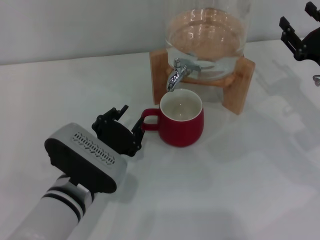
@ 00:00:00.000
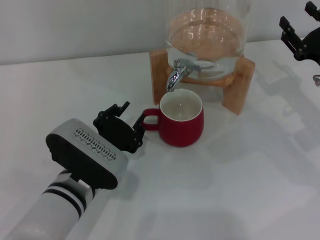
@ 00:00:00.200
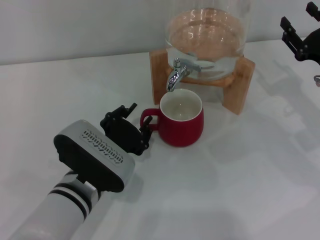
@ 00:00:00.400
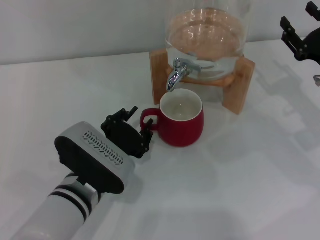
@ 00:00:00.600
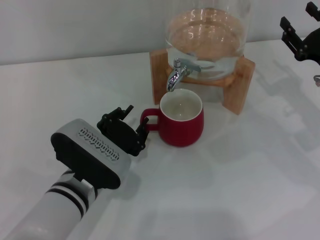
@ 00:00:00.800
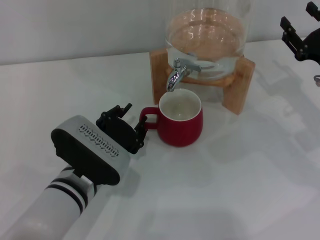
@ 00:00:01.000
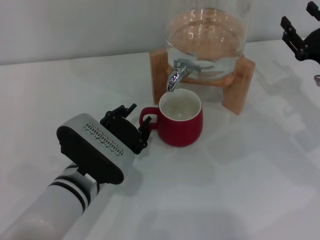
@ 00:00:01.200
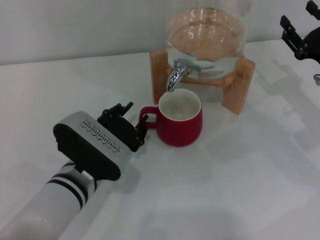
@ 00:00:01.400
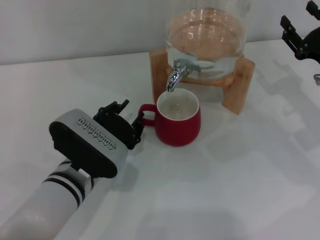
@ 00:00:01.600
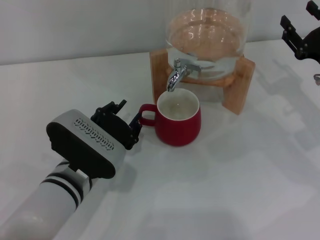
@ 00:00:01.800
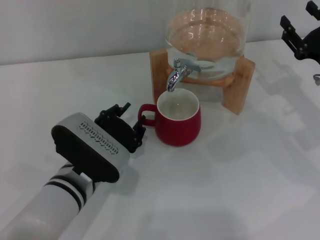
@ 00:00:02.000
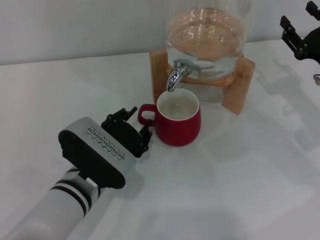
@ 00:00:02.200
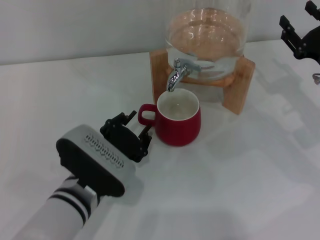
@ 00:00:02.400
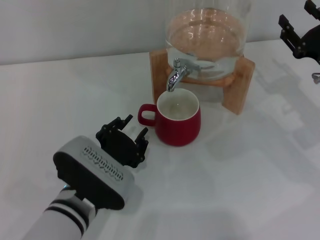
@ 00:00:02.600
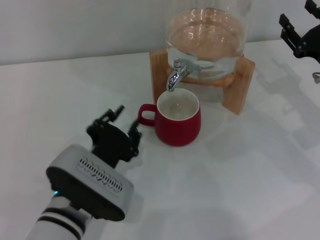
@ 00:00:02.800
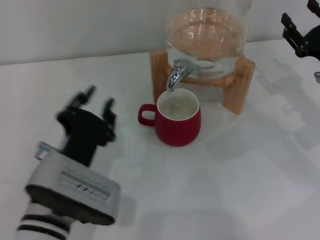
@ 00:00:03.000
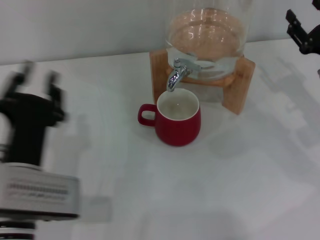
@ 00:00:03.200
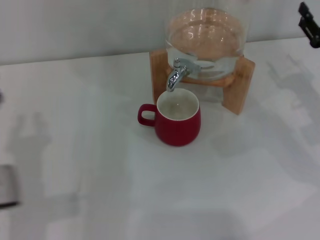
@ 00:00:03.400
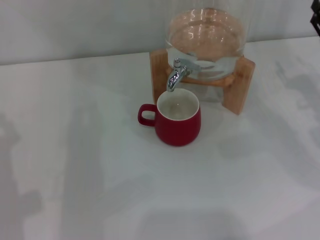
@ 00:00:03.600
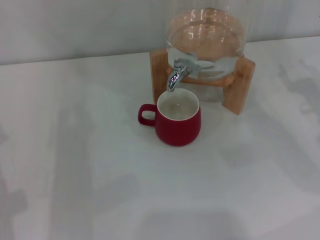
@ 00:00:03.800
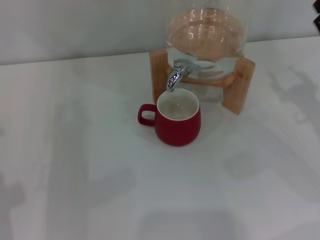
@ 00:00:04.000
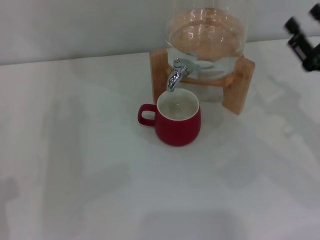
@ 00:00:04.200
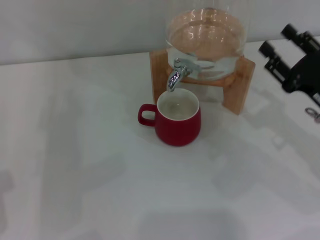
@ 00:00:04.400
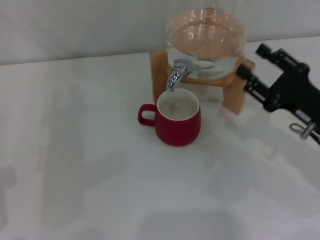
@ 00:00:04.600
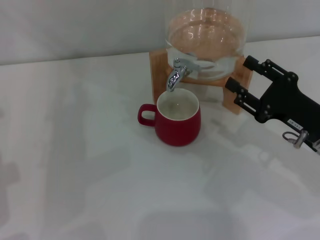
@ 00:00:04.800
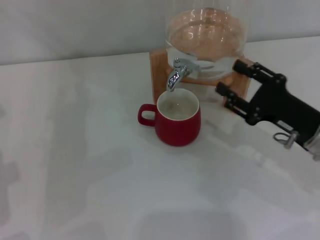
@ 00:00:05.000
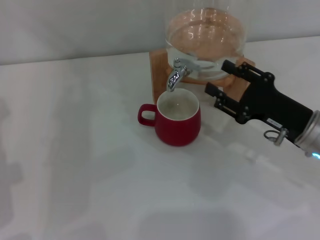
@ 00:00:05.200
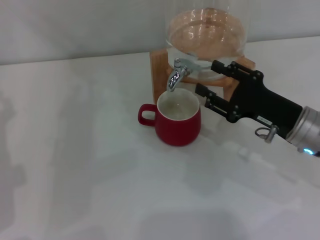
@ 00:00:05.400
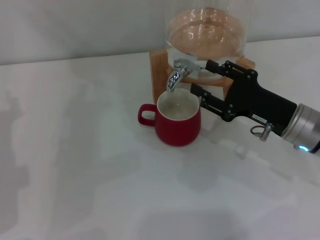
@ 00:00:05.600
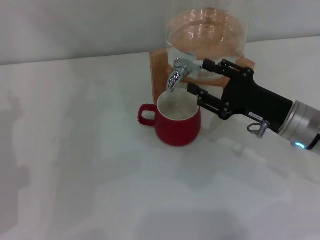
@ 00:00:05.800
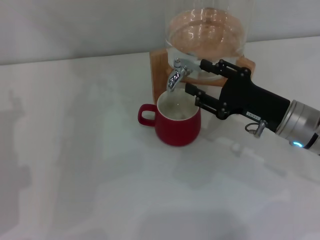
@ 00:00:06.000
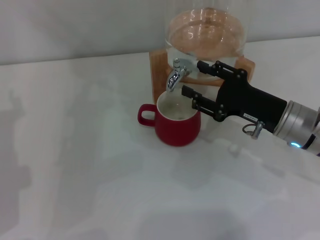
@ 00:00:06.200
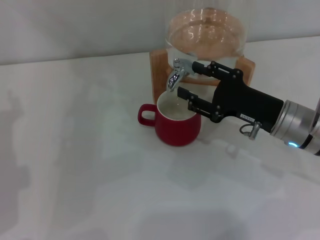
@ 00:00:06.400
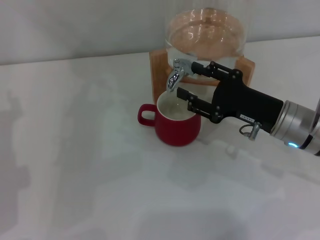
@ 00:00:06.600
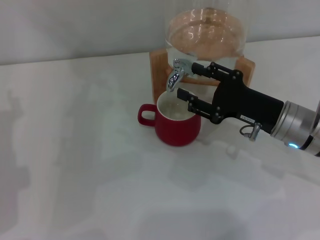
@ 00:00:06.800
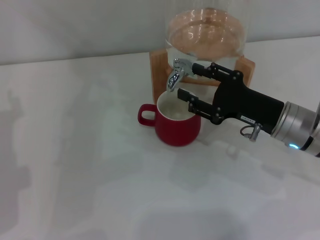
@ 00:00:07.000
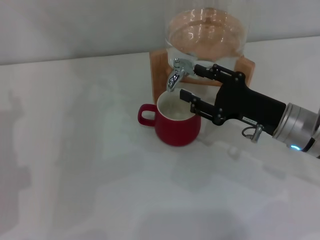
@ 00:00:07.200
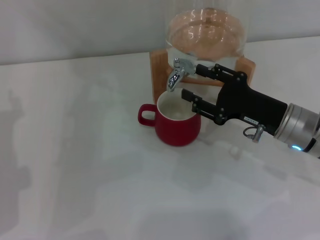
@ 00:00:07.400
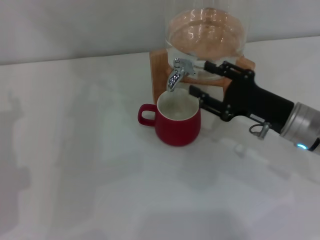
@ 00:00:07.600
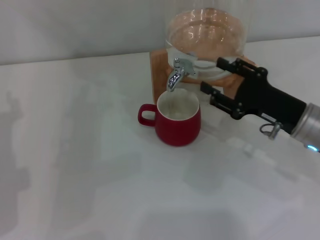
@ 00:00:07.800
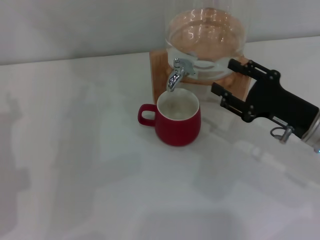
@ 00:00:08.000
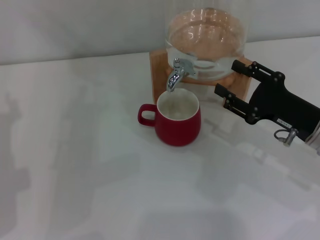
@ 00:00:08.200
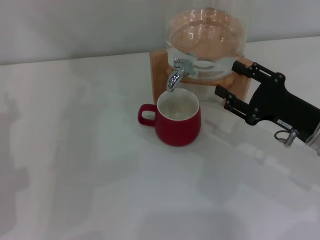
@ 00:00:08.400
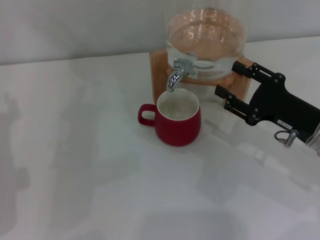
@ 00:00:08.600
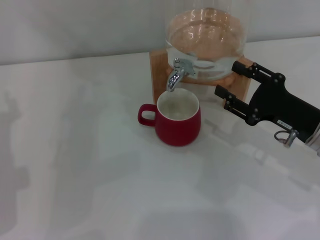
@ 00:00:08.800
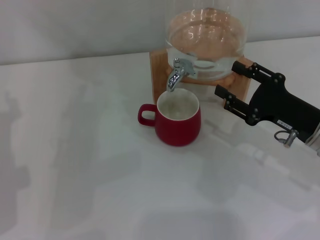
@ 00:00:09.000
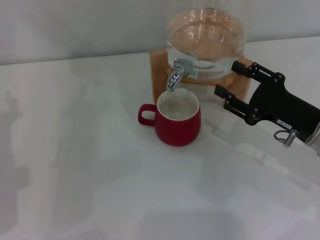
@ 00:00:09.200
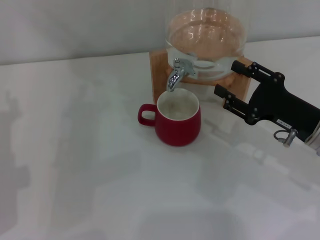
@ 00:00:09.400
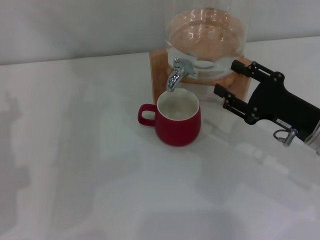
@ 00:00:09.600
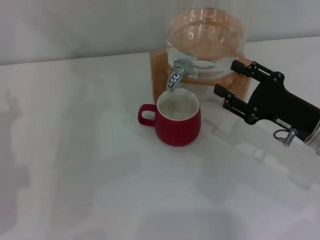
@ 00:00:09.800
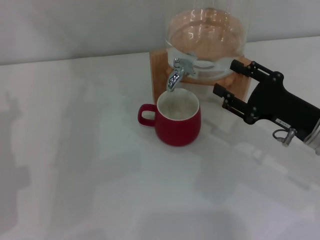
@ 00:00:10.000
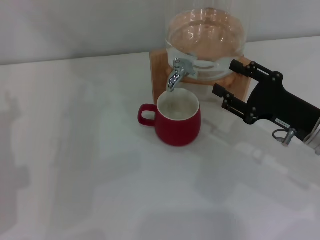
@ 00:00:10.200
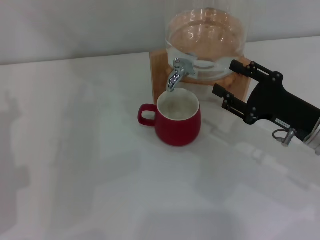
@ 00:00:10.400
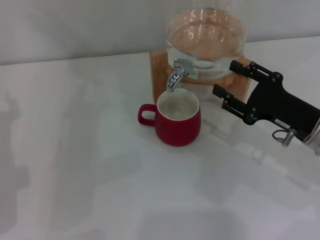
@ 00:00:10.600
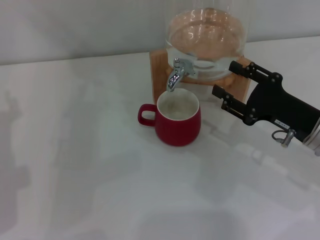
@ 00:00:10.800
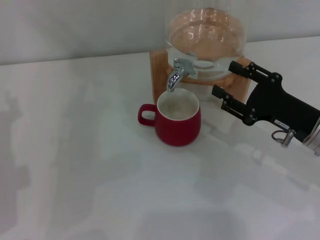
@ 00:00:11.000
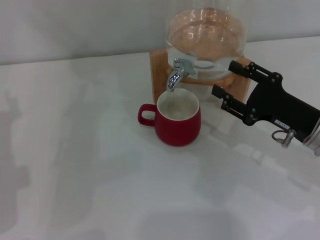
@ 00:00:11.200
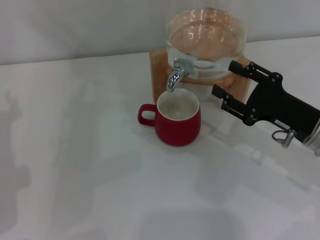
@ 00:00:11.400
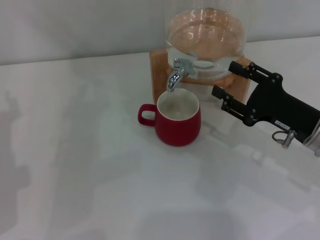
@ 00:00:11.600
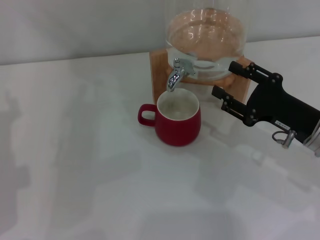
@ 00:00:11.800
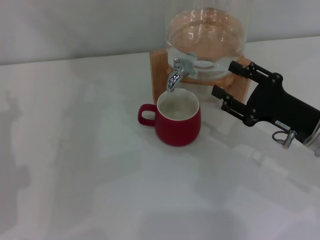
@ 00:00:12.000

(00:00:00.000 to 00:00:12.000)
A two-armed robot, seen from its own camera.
Task of the whole recording: the left gripper pick up the red cup and place it horizontally under the faucet, the right gripper turn on the faucet to fill the cup, and then turn off the faucet.
Step, 00:00:00.000 - 00:00:07.400: Open the dispenser valve and fill the cup with water with the right gripper.
00:00:00.000 - 00:00:01.600: There are only small adjustments of the grippers.
00:00:01.600 - 00:00:03.000: The left gripper moves backward, some 5 cm.
00:00:03.000 - 00:00:04.400: The left gripper heads to the left and forward, covering about 15 cm. Meanwhile the right gripper is displaced backward by about 5 cm.
00:00:04.400 - 00:00:06.000: The right gripper is displaced to the left by roughly 5 cm.
00:00:06.000 - 00:00:07.600: Both grippers stay about where they are.
00:00:07.600 - 00:00:09.000: The grippers make only small movements.
00:00:09.000 - 00:00:12.000: The two grippers keep their place.

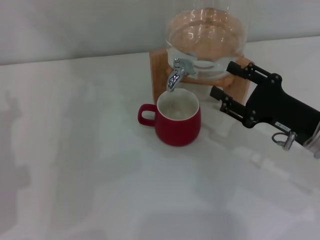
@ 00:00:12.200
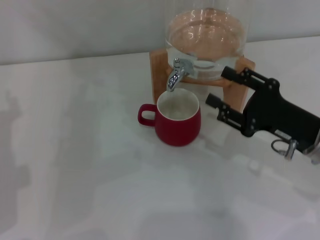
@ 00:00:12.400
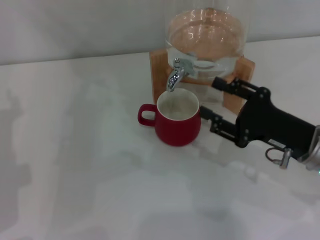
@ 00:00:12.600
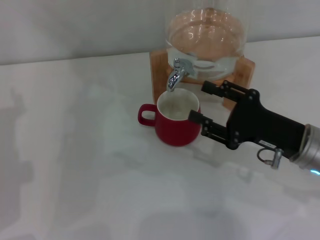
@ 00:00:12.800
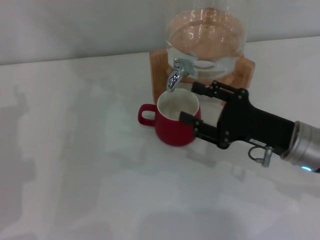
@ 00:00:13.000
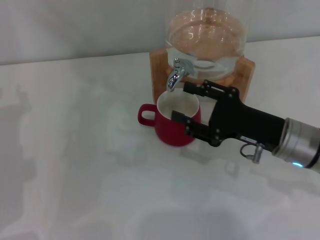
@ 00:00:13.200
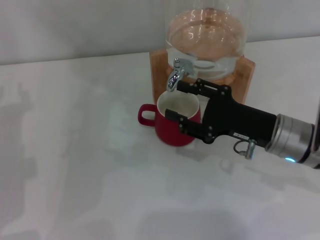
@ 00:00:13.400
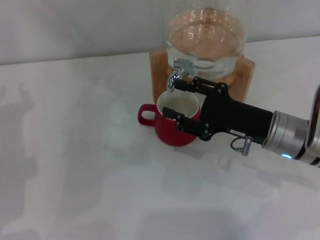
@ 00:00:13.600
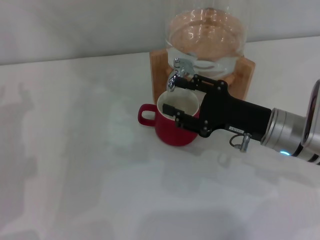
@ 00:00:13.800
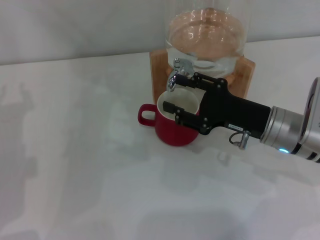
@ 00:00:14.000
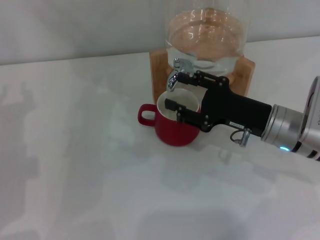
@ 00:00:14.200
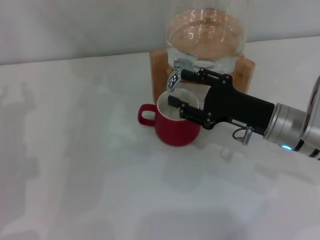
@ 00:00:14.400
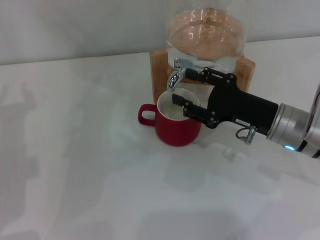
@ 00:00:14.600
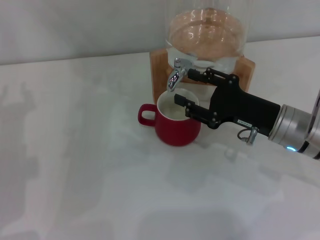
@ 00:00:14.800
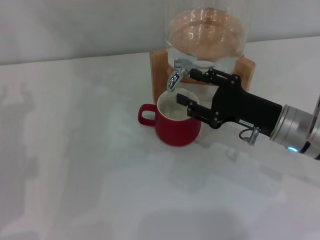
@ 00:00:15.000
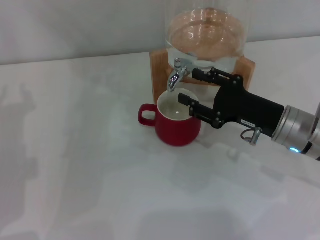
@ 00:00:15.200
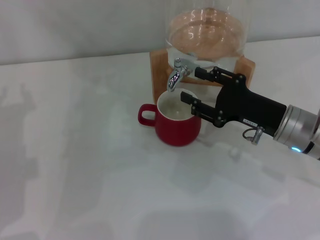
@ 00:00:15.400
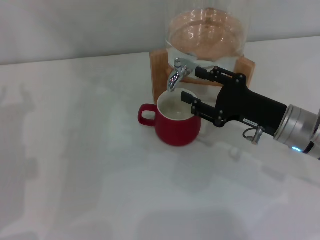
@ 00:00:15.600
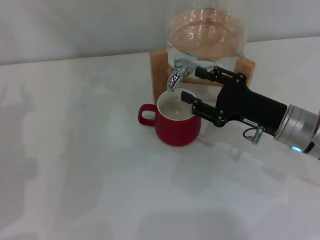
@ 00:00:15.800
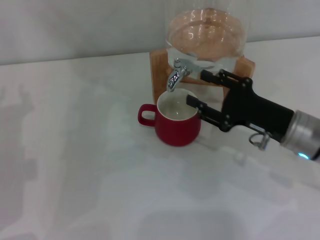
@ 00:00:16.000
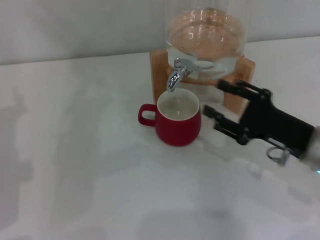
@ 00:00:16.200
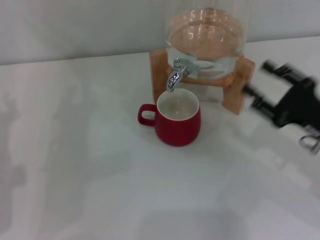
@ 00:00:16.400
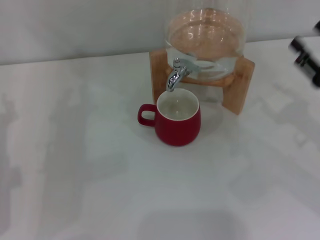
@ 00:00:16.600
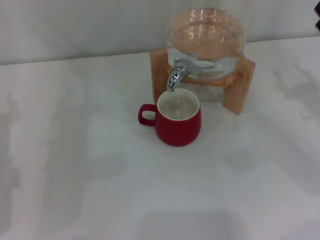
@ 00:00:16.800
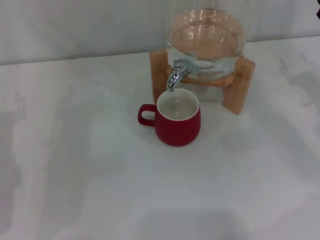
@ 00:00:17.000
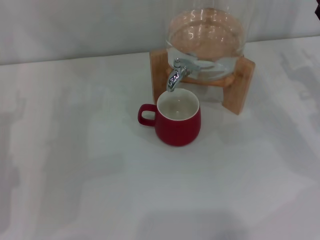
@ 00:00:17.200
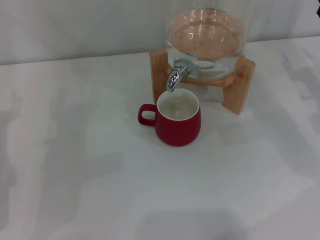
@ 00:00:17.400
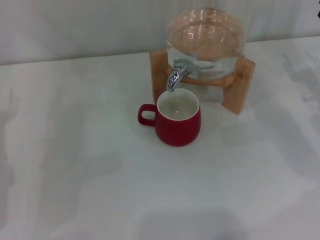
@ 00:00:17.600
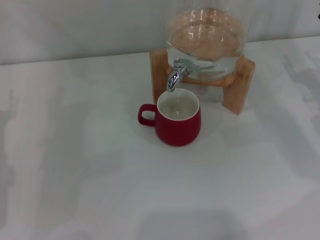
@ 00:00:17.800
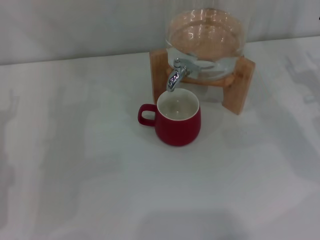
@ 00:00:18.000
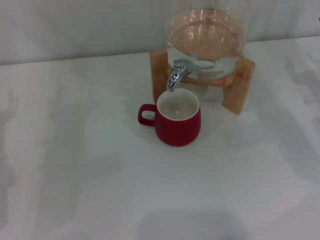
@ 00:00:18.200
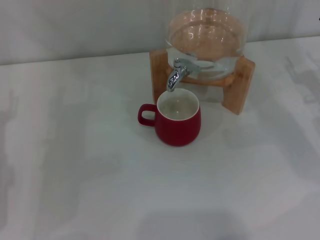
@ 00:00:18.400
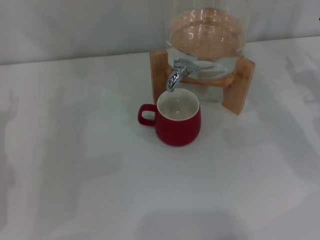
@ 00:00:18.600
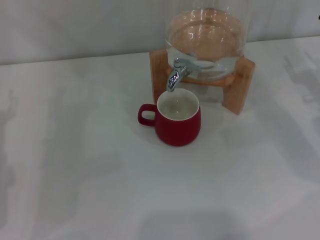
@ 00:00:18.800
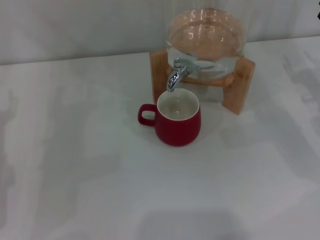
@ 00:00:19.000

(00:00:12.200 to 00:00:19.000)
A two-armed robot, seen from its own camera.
Task of the whole recording: the left gripper pick up the red cup and place it horizontally under the faucet, the right gripper turn on the faucet to fill the cup, and then turn off the faucet.
Step, 00:00:12.200 - 00:00:14.400: Close the dispenser valve with the right gripper.
00:00:12.200 - 00:00:13.600: The right gripper heads to the left, covering approximately 5 cm.
00:00:13.600 - 00:00:15.000: The grippers move only a little.
00:00:15.000 - 00:00:16.200: The right gripper shifts by roughly 5 cm.
00:00:16.200 - 00:00:17.600: The right gripper shifts about 10 cm to the right and forward.
00:00:17.600 - 00:00:19.000: Both grippers stay put.
